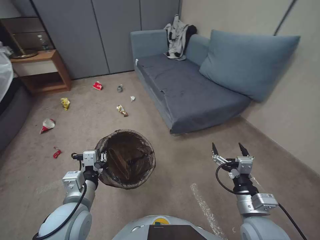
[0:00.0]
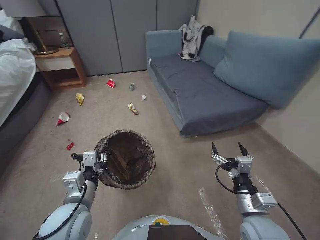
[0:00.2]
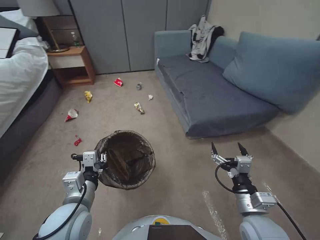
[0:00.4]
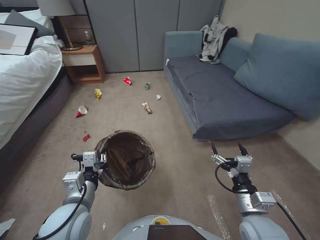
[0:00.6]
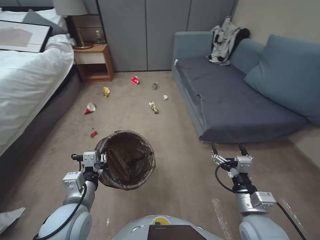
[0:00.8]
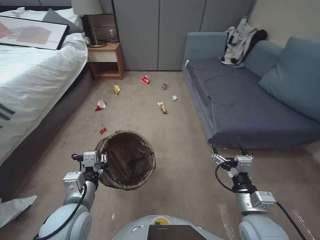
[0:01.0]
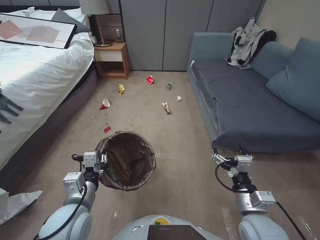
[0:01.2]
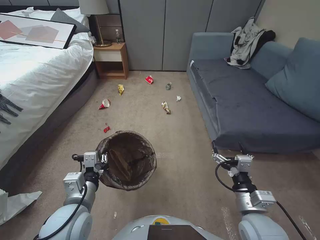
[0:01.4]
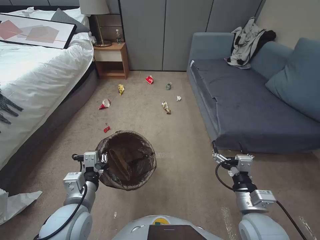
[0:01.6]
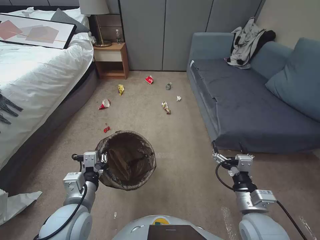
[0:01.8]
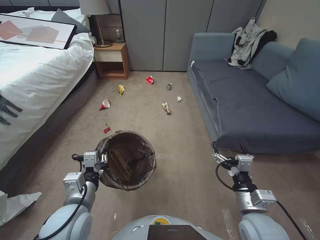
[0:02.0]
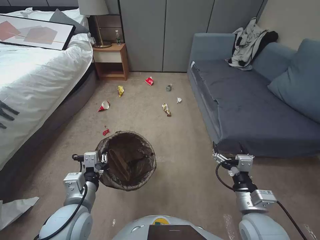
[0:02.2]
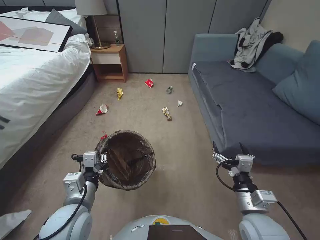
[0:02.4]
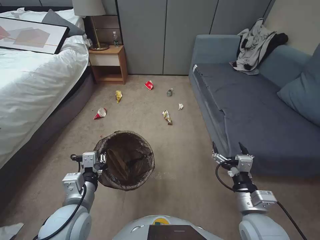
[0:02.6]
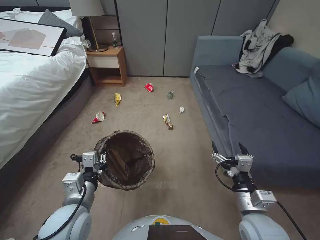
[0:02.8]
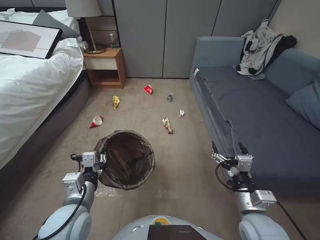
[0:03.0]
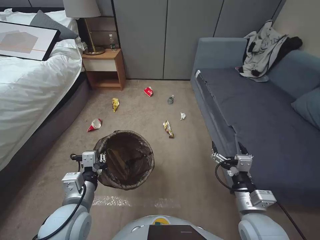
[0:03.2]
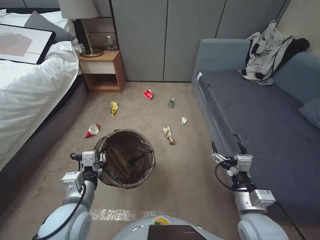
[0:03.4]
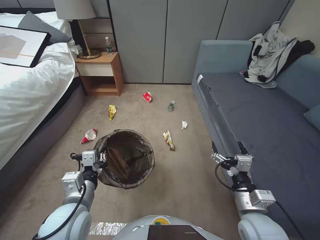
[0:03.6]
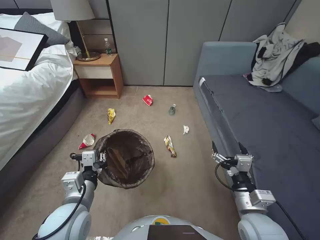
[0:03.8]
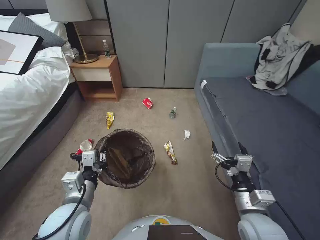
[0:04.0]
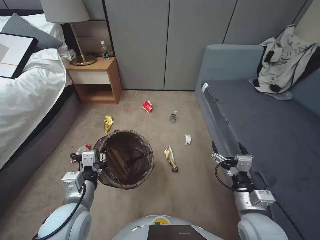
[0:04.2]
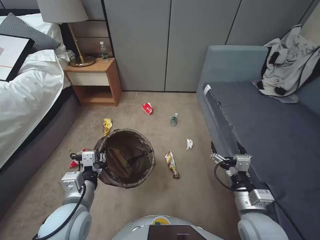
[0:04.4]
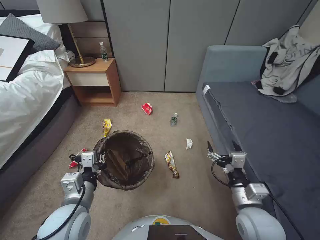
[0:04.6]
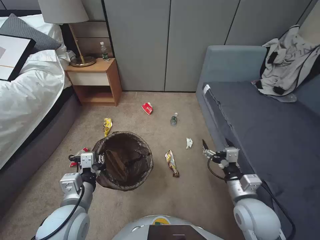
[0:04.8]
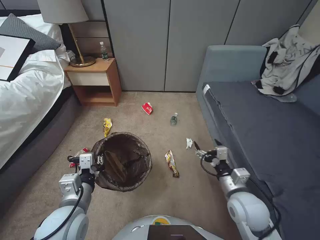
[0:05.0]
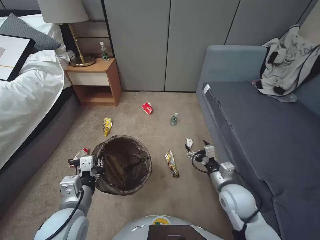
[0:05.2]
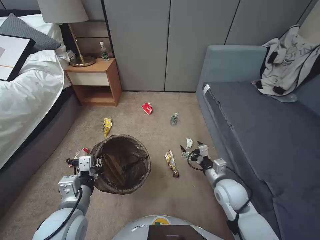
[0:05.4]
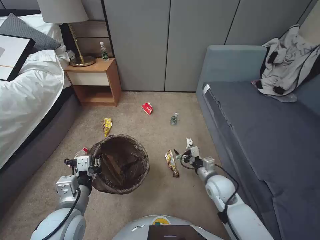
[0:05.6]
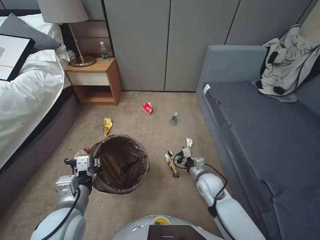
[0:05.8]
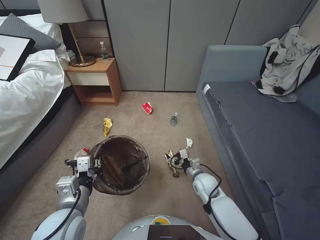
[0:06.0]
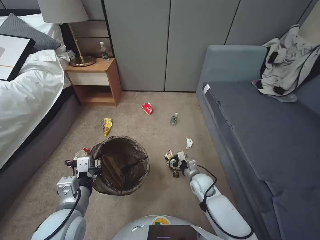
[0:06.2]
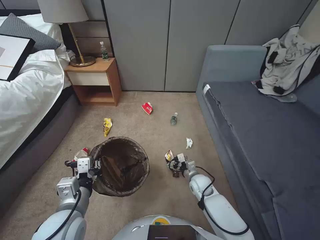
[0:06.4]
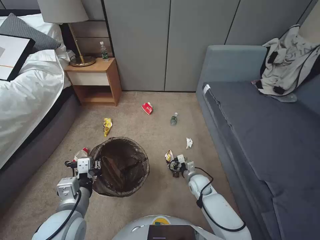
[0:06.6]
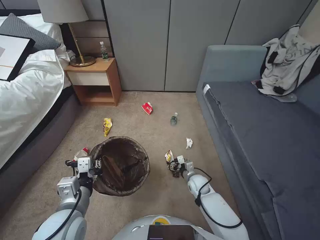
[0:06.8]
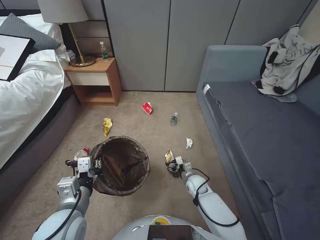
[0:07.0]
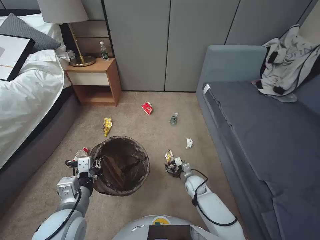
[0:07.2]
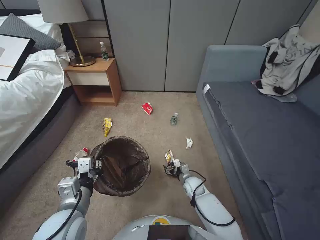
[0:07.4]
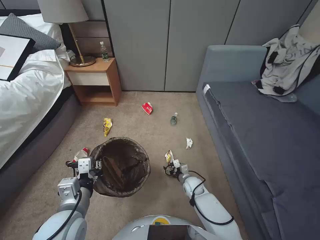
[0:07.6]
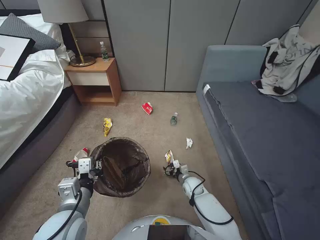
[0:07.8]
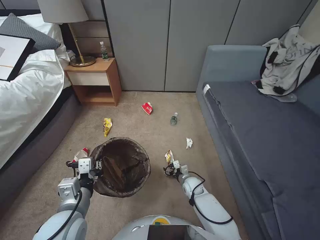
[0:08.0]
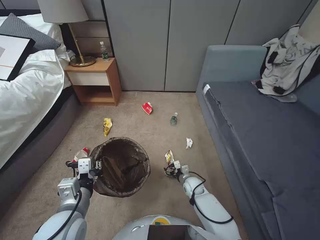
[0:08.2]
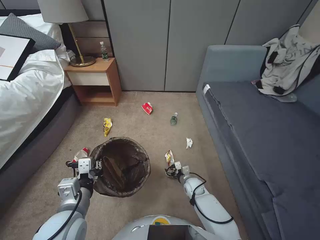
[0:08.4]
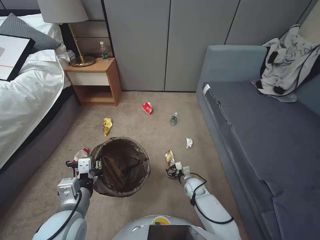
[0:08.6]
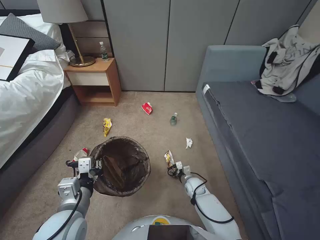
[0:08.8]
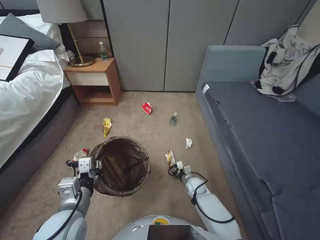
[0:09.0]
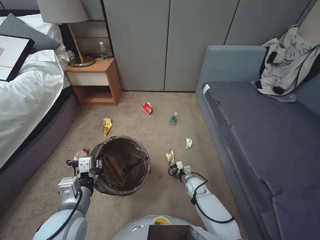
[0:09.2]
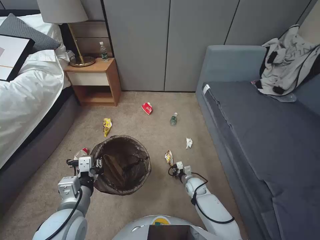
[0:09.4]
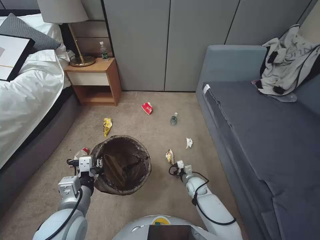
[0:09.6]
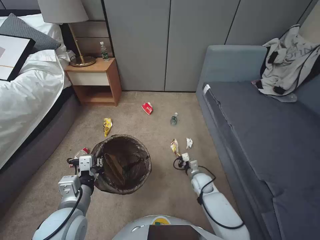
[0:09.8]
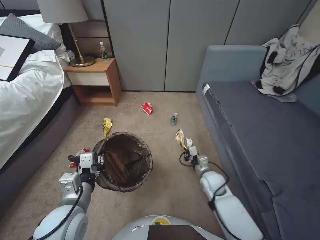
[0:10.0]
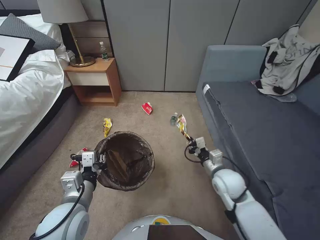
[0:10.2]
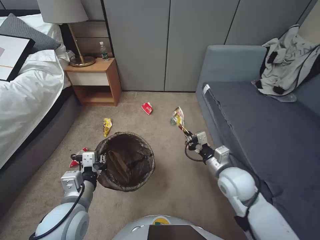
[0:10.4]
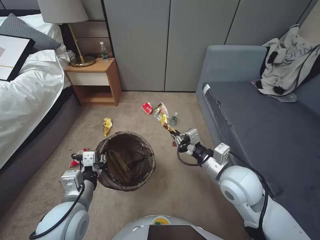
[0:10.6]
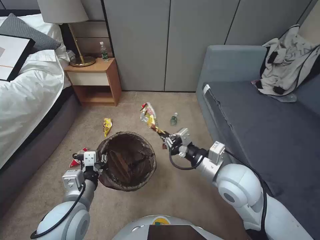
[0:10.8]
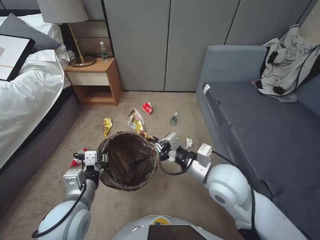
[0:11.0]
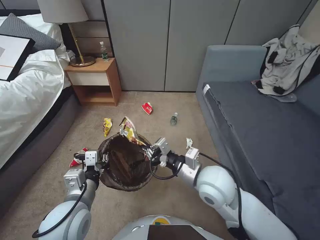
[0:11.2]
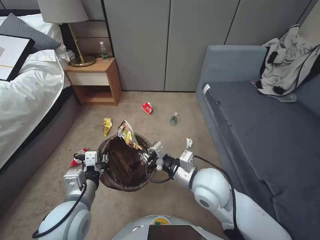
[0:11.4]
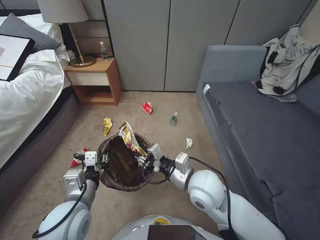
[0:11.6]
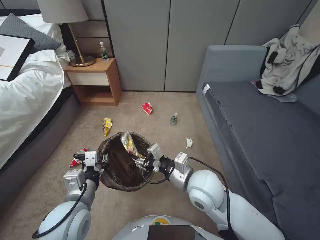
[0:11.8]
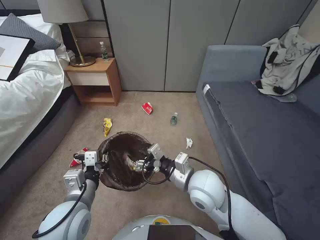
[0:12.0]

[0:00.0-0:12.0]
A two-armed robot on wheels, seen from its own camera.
Task of the whole recording: Pick up the trash bin, then pick up the garbage from the floor and place it into the trash bin.
0:04.4 to 0:06.0: The right gripper is displaced forward and downward by roughly 20 cm.
0:06.0 to 0:07.6: The right gripper travels downward by about 10 cm.
0:07.6 to 0:09.0: The grippers move only a little.
0:09.0 to 0:10.4: The right gripper travels upward by approximately 30 cm, and closes its fingers.
0:10.4 to 0:12.0: The right gripper goes approximately 10 cm to the left, and opens its fingers.

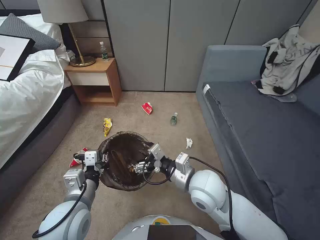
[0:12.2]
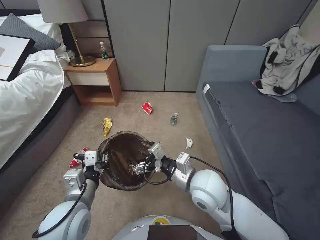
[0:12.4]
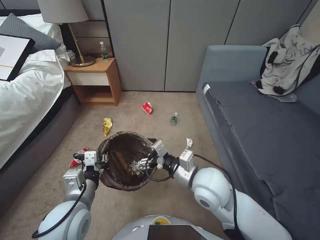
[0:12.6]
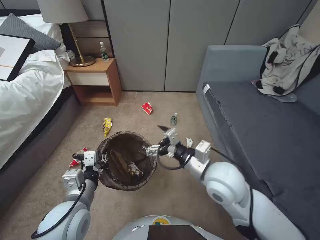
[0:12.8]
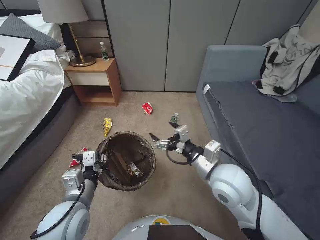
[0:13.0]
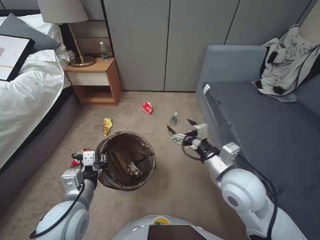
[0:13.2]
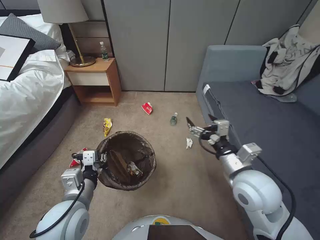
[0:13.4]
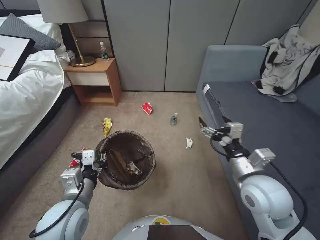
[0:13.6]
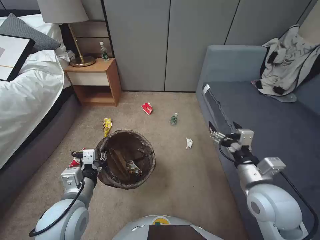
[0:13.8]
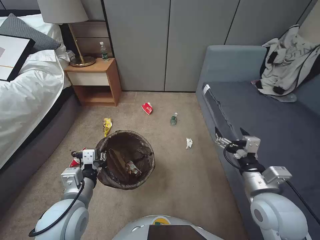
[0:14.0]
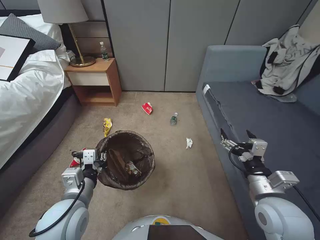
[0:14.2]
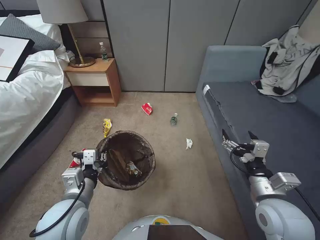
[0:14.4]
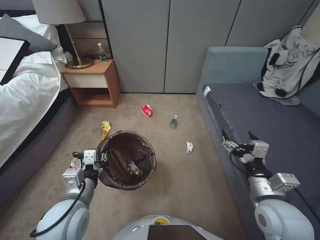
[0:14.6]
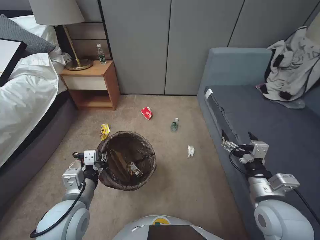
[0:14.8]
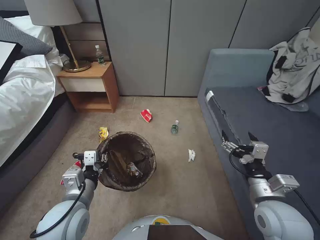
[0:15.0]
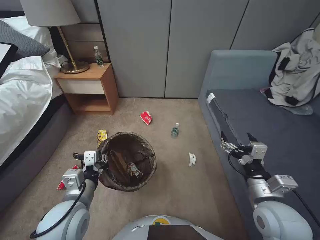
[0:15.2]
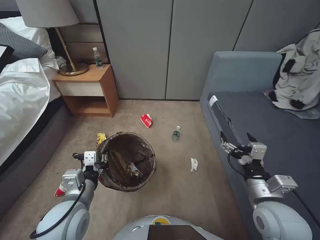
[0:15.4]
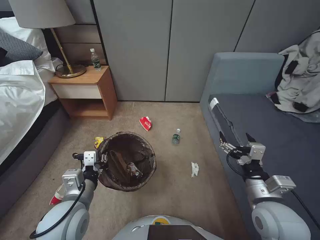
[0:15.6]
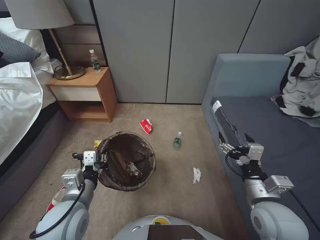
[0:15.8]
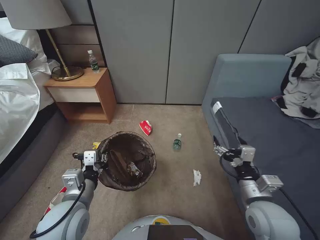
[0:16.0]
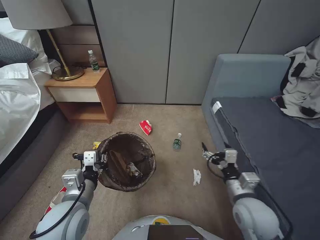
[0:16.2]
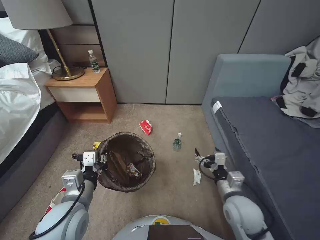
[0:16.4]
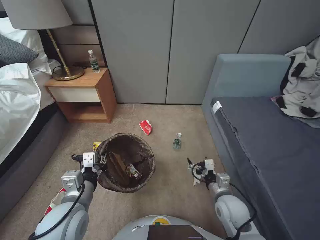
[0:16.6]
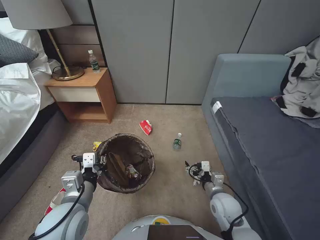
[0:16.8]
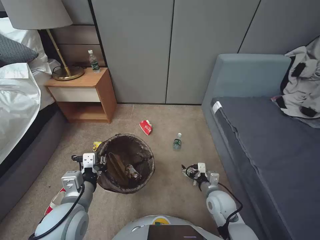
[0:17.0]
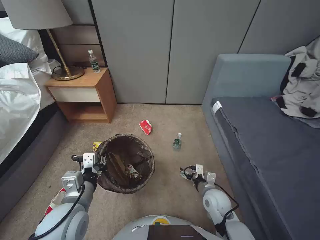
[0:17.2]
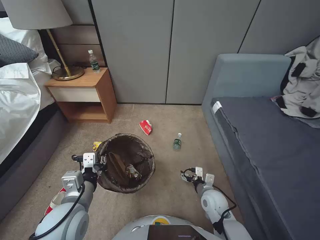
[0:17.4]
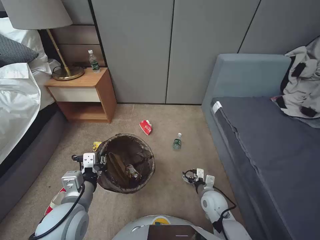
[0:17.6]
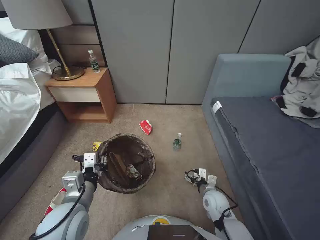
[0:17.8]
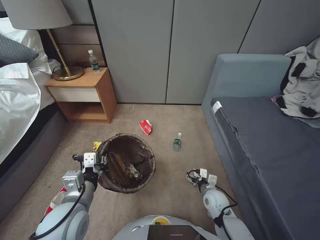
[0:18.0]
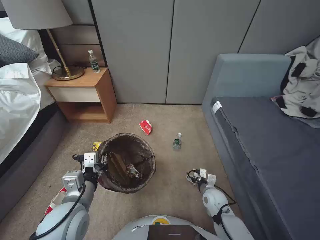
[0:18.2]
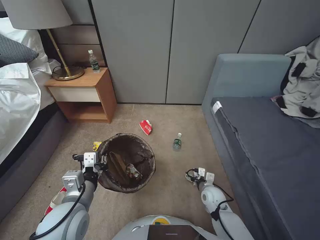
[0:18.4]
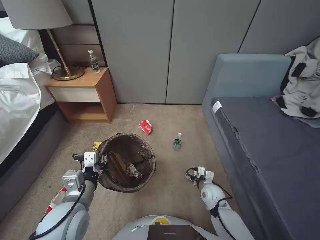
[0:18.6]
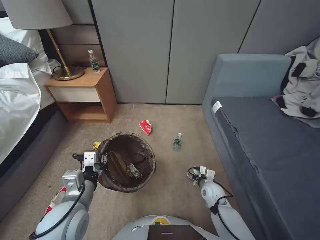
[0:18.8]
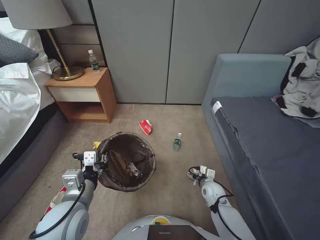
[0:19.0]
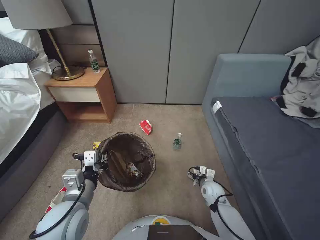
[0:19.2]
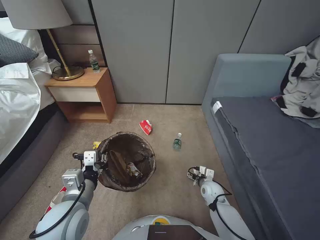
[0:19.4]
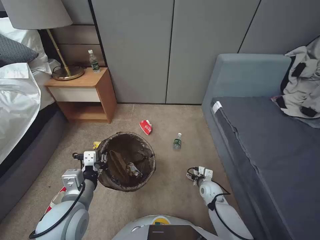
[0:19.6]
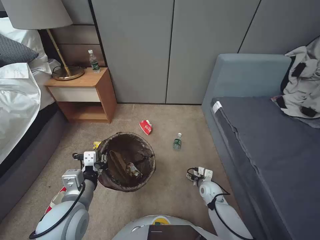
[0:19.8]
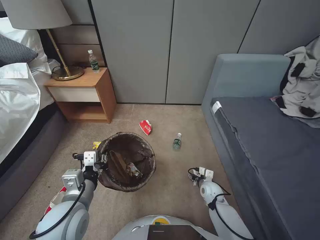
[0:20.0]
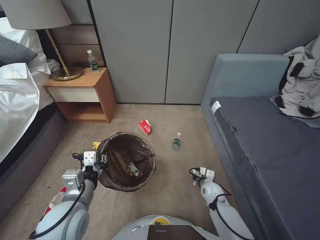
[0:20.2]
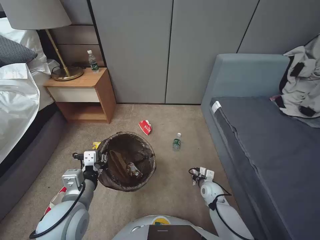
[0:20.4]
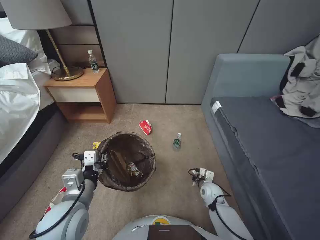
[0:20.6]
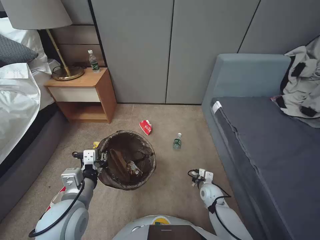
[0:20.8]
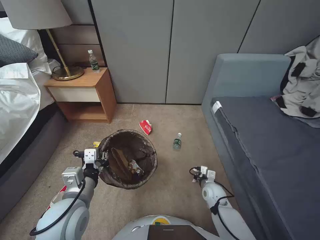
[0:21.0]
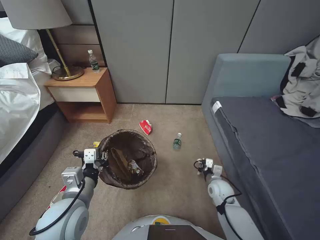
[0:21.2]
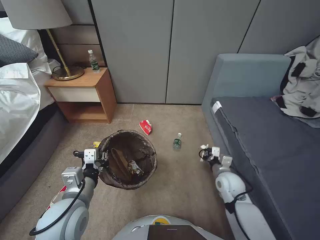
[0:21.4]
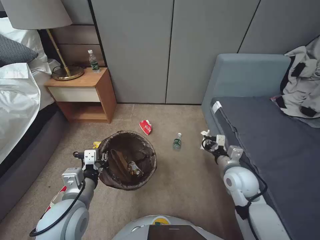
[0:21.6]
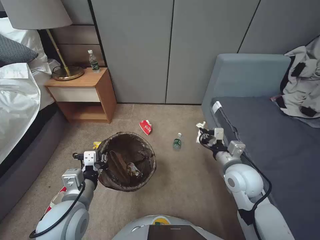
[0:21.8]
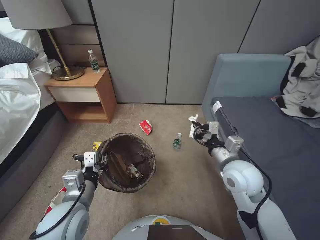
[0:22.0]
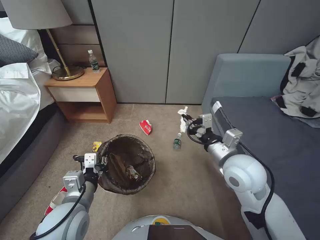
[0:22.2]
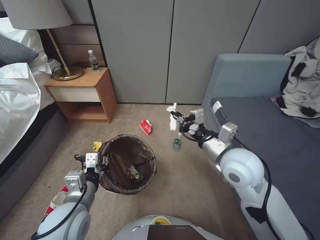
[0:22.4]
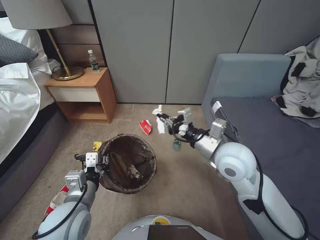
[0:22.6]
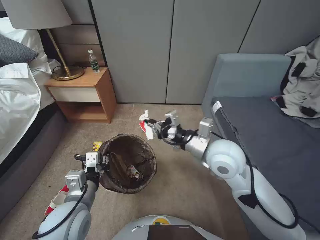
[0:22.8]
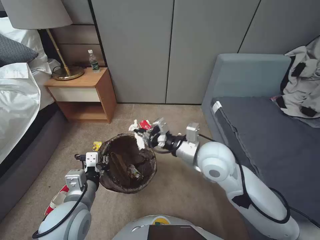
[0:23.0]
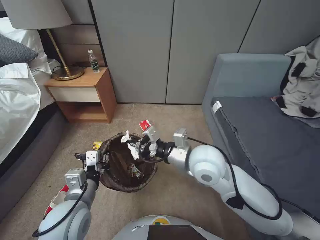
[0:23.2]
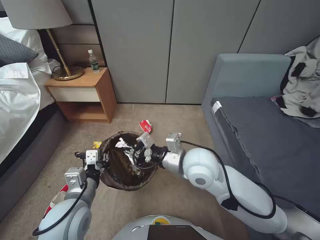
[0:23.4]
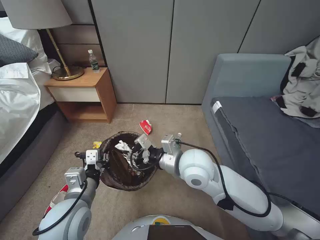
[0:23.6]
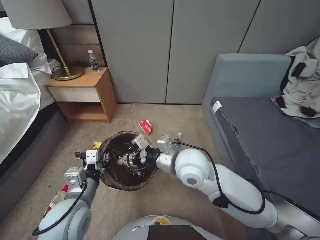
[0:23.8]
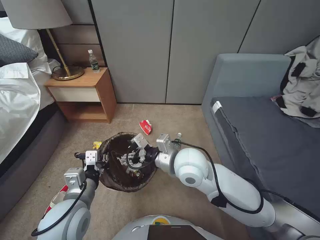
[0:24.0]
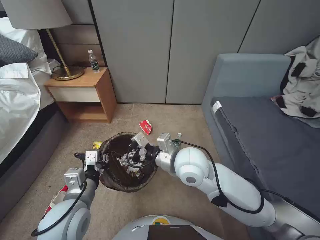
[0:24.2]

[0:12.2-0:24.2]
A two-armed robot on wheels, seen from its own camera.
Task of the whole recording: Pick up the trash bin, then pick up the garbage from the floor and place it into the trash bin.
0:12.2 to 0:13.8: The right gripper travels to the right by some 15 cm.
0:13.8 to 0:15.2: The right gripper shifts by some 5 cm.
0:15.2 to 0:16.6: The right gripper travels downward by approximately 10 cm.
0:16.6 to 0:18.2: The right gripper heads downward and forward, covering roughly 15 cm.
0:18.2 to 0:19.8: The right gripper moves approximately 5 cm.
0:19.8 to 0:21.2: The right gripper closes its fingers.
0:21.2 to 0:22.6: The right gripper travels upward by about 35 cm.
0:22.6 to 0:24.2: The right gripper goes some 10 cm to the left, and opens its fingers.
